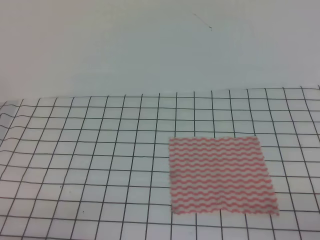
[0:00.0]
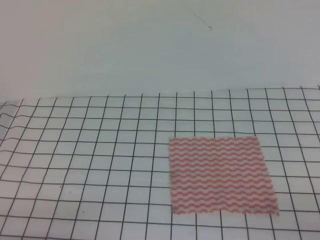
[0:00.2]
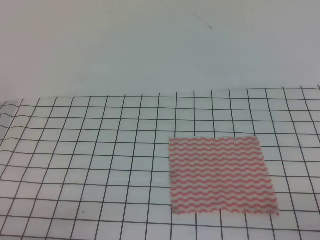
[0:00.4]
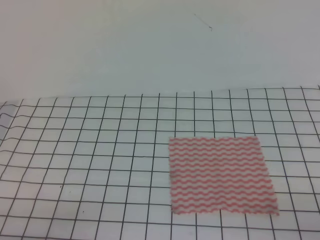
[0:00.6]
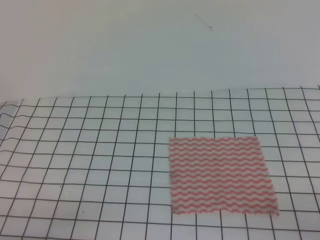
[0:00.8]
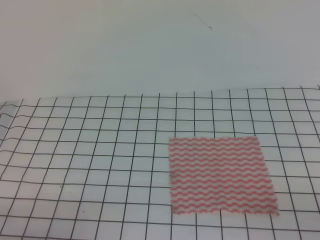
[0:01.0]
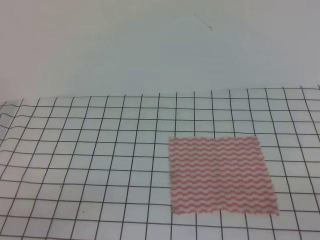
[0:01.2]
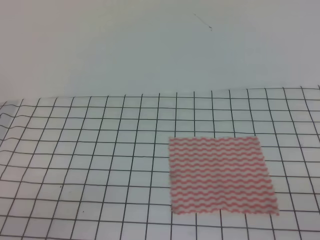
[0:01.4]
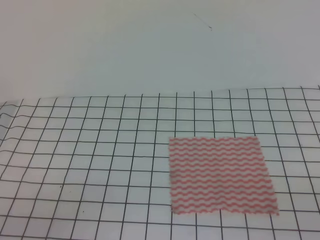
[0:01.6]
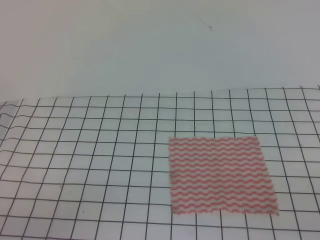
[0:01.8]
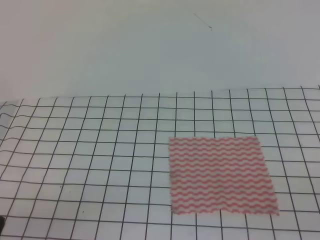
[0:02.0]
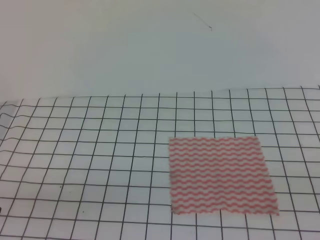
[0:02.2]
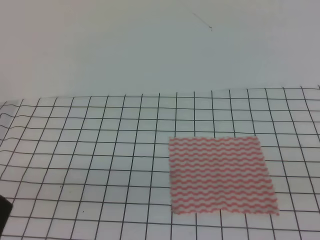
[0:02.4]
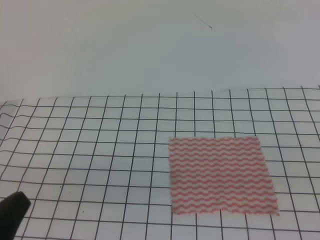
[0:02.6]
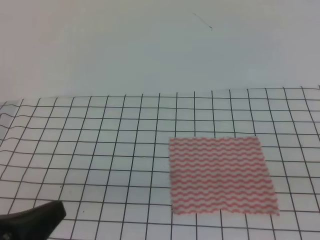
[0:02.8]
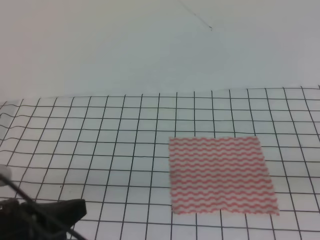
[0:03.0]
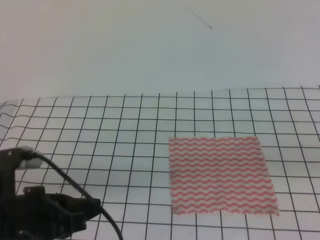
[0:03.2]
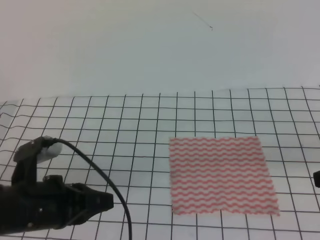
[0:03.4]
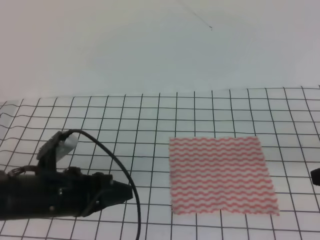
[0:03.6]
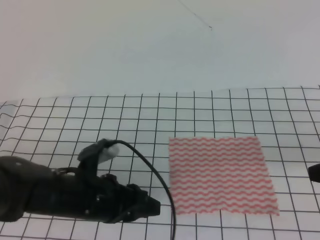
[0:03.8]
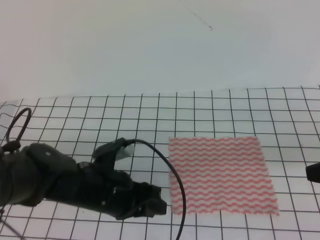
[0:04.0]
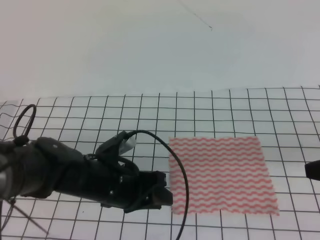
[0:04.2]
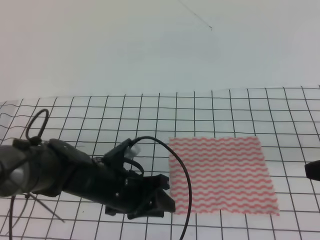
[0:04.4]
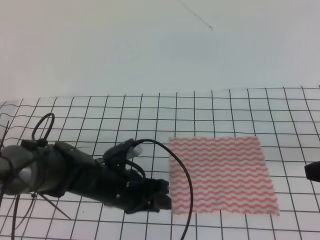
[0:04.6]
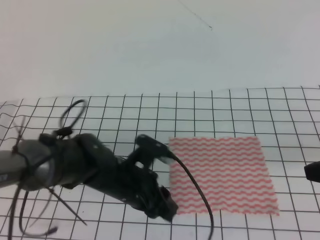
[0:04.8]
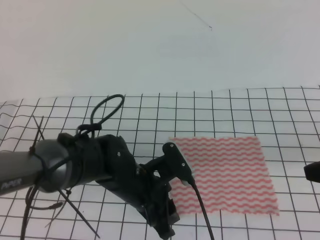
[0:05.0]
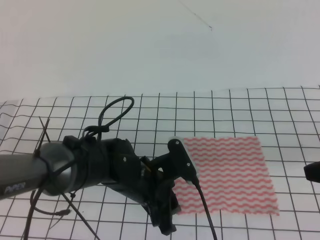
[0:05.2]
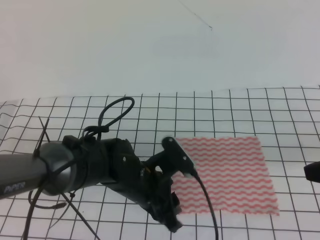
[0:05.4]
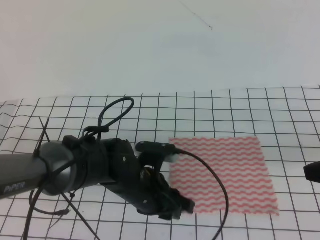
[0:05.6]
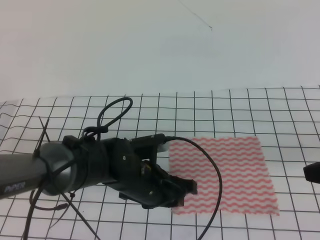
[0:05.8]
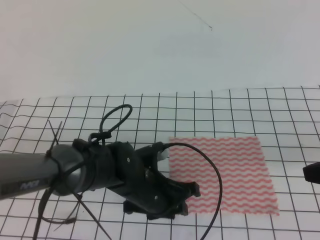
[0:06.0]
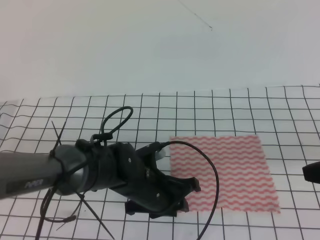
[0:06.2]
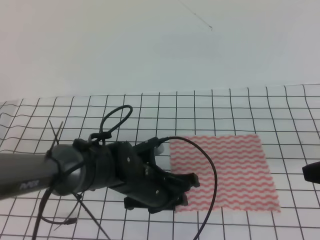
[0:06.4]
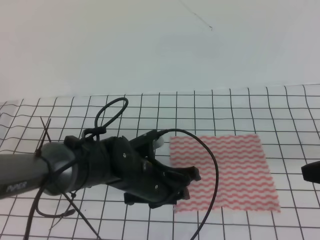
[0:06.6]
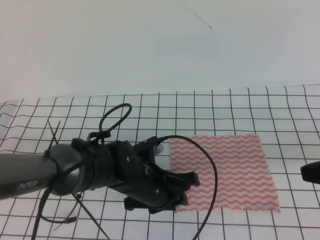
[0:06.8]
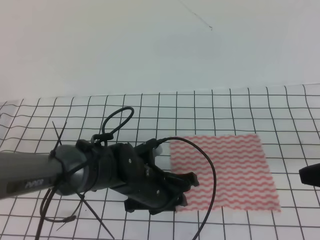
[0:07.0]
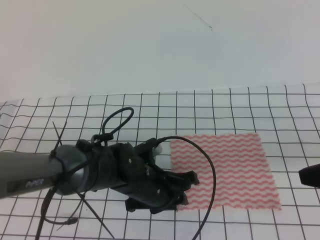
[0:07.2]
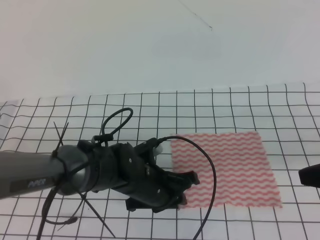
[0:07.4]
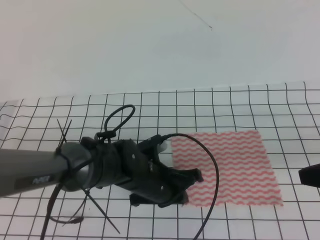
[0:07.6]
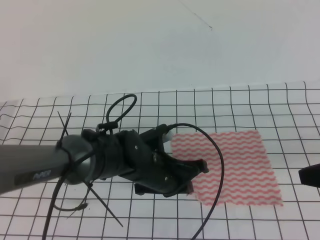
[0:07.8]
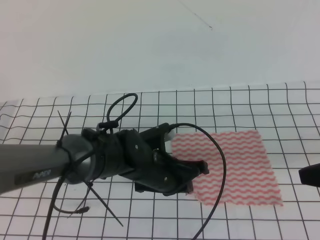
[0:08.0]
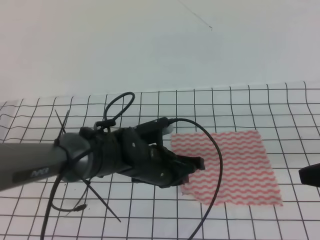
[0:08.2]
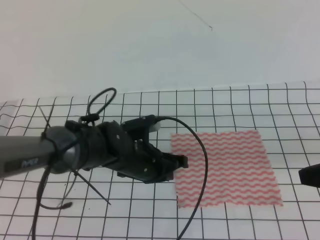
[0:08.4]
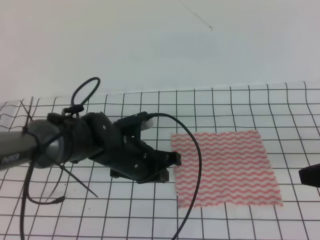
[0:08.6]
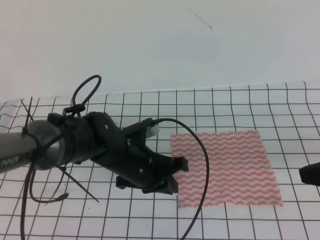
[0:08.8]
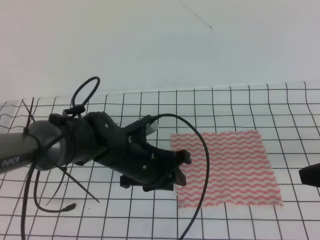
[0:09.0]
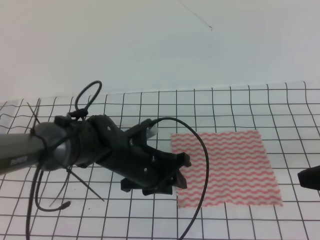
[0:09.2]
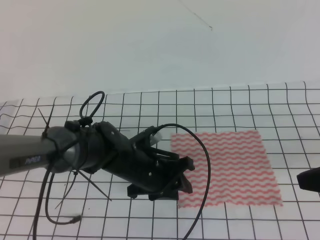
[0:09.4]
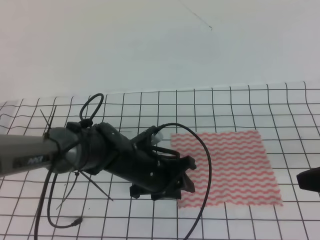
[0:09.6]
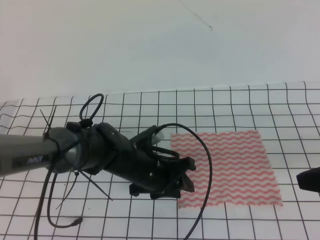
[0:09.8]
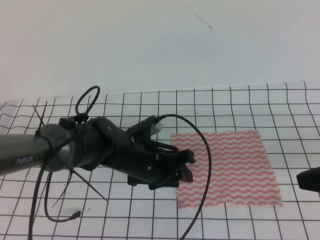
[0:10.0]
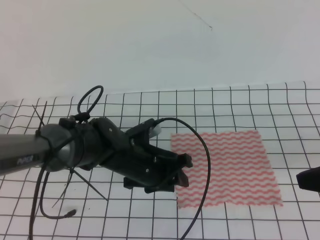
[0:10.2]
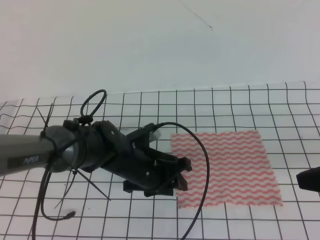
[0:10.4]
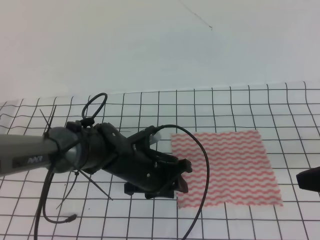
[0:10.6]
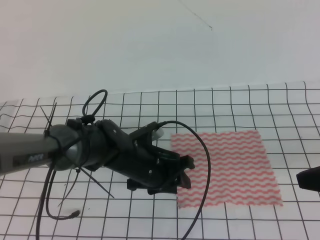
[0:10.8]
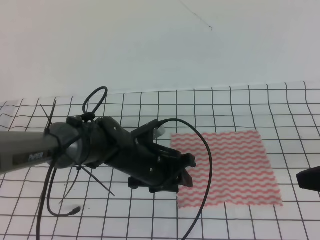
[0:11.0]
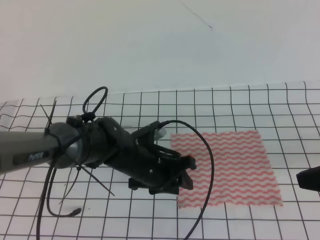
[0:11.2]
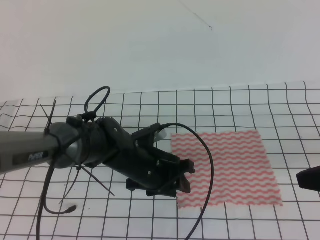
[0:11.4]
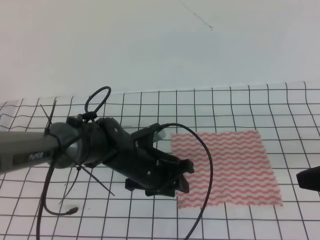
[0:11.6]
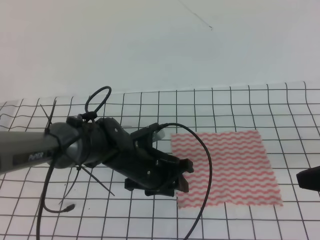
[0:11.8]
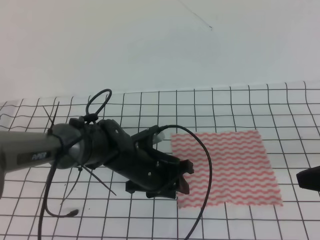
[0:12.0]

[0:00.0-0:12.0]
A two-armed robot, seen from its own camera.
0:01.6 to 0:03.0: The left gripper goes about 10 cm upward, to the right and forward.
0:03.0 to 0:04.4: The left gripper shifts some 20 cm forward, to the right and downward, and opens up, while the right gripper heads forward, covering approximately 10 cm.
0:04.4 to 0:06.0: The left gripper moves to the right, some 5 cm.
0:06.0 to 0:07.6: The left gripper closes.
0:07.6 to 0:09.0: The grippers move only a little.
0:09.0 to 0:10.4: The left gripper opens up.
0:10.4 to 0:12.0: Neither gripper changes place.

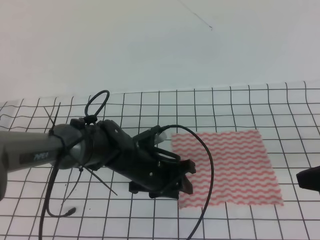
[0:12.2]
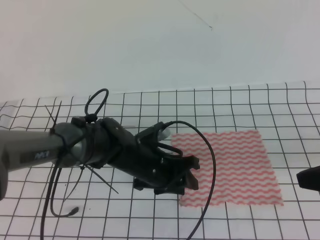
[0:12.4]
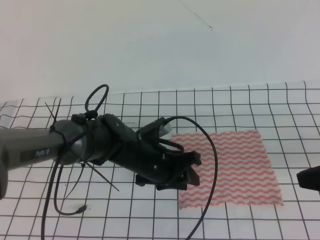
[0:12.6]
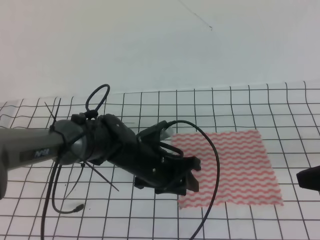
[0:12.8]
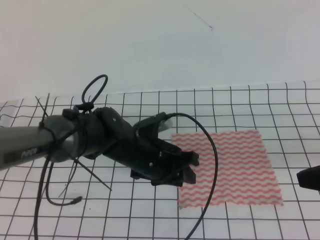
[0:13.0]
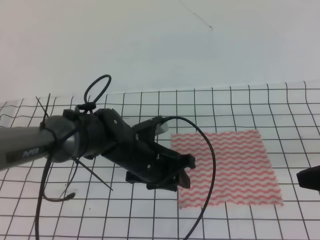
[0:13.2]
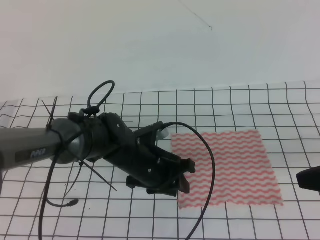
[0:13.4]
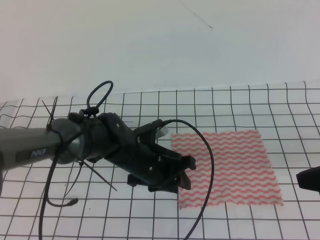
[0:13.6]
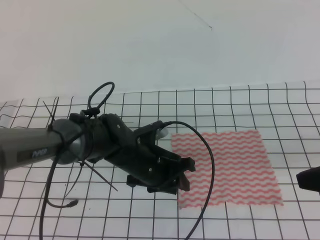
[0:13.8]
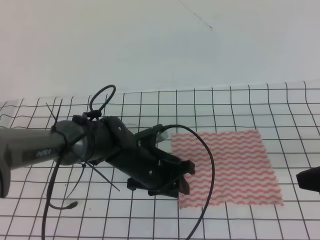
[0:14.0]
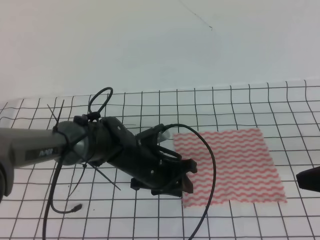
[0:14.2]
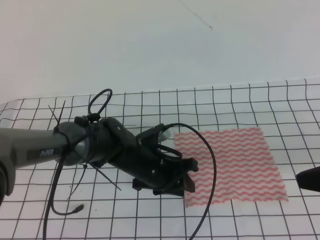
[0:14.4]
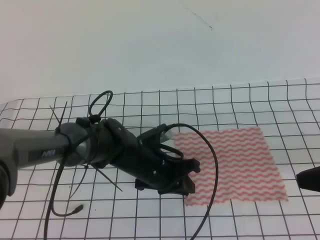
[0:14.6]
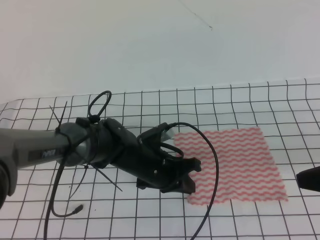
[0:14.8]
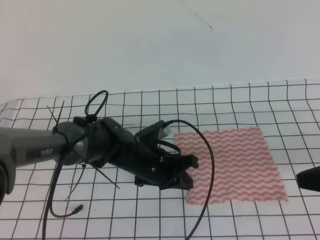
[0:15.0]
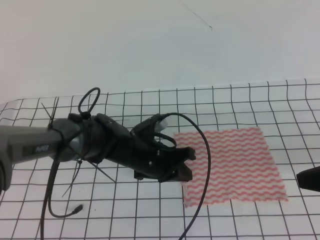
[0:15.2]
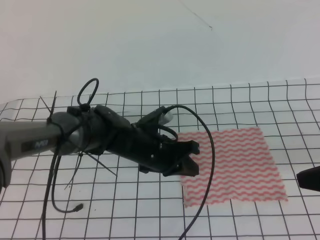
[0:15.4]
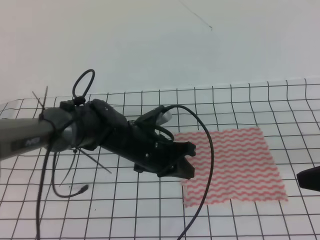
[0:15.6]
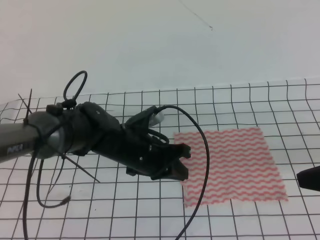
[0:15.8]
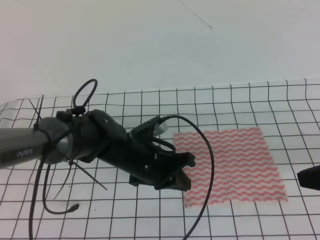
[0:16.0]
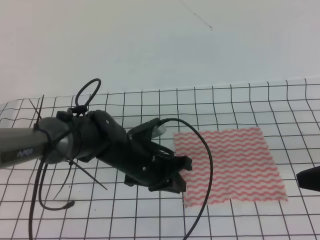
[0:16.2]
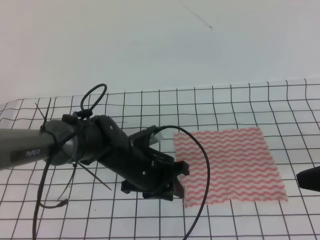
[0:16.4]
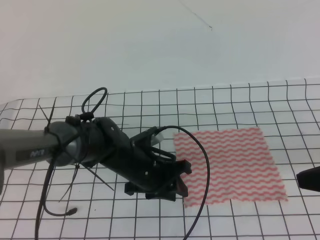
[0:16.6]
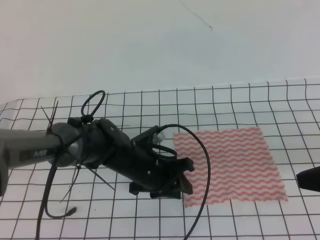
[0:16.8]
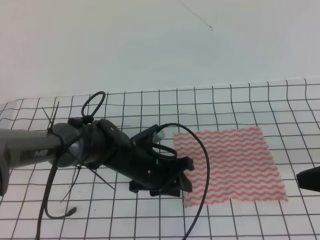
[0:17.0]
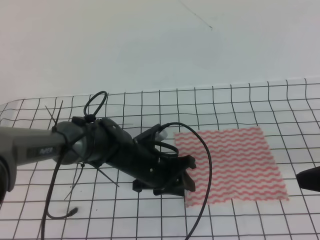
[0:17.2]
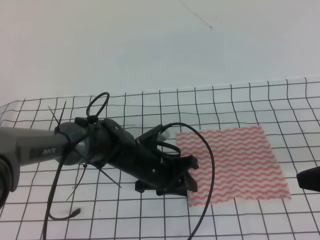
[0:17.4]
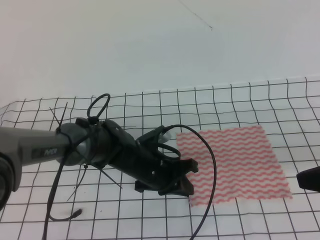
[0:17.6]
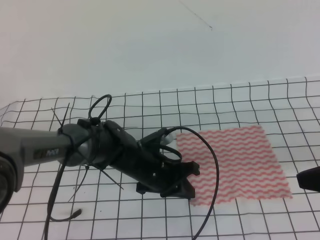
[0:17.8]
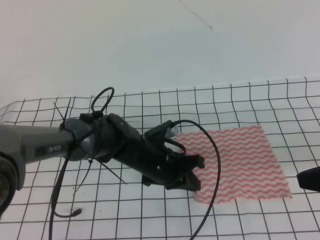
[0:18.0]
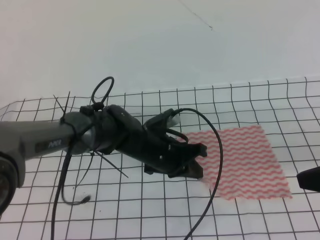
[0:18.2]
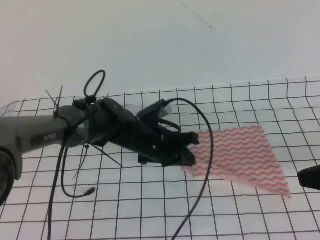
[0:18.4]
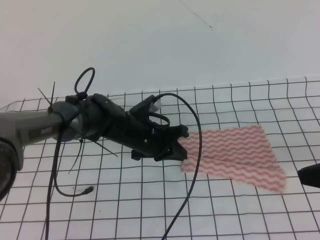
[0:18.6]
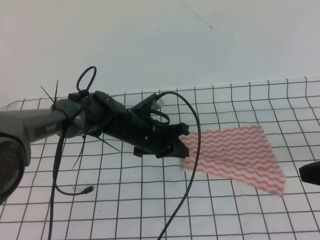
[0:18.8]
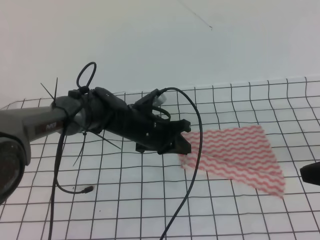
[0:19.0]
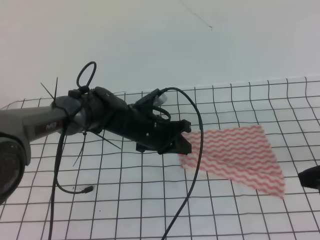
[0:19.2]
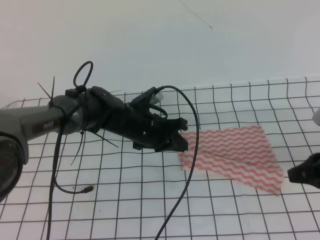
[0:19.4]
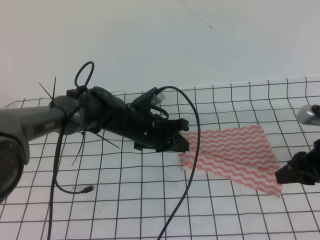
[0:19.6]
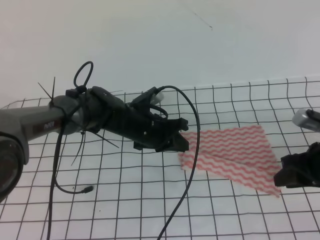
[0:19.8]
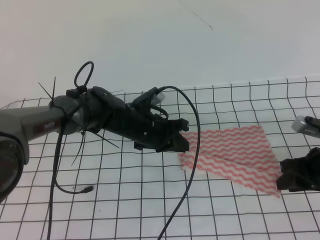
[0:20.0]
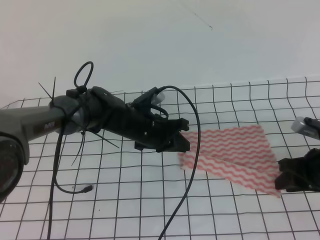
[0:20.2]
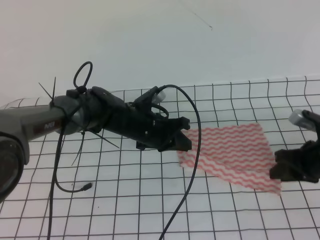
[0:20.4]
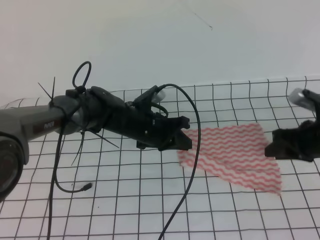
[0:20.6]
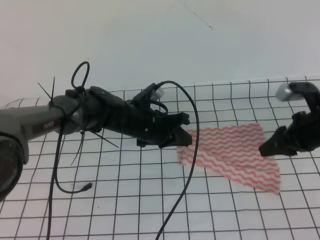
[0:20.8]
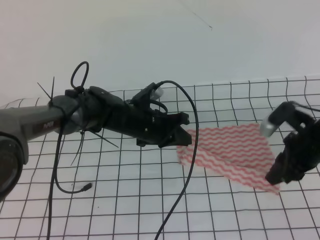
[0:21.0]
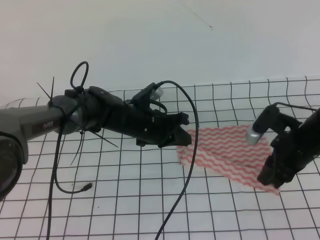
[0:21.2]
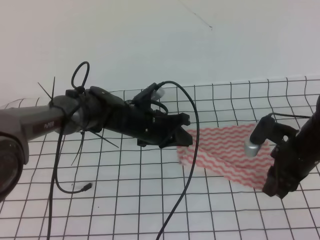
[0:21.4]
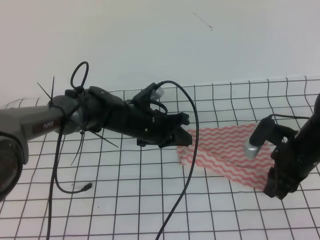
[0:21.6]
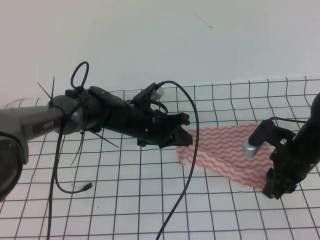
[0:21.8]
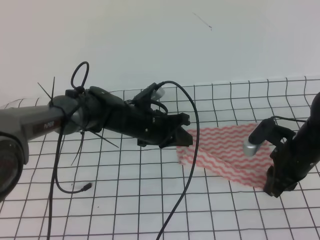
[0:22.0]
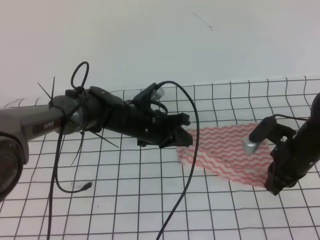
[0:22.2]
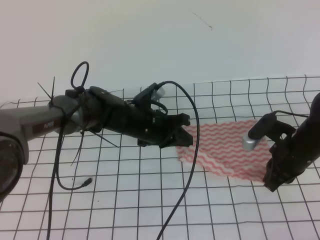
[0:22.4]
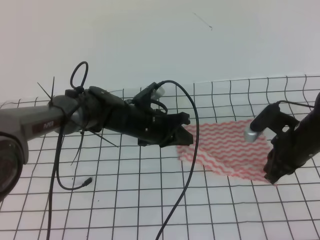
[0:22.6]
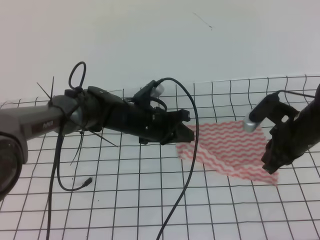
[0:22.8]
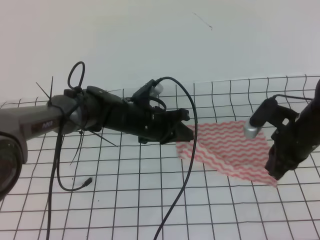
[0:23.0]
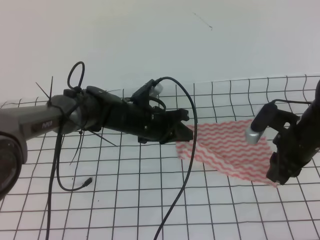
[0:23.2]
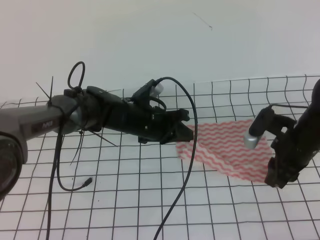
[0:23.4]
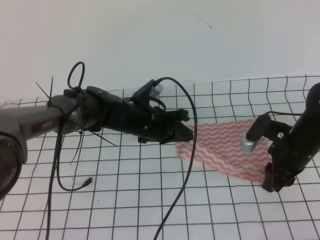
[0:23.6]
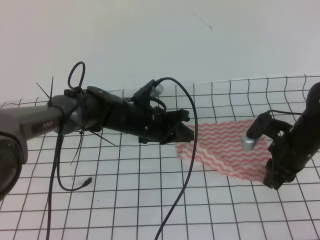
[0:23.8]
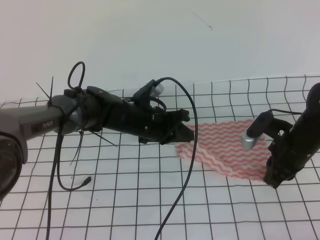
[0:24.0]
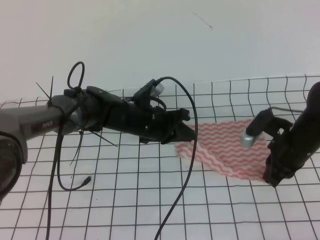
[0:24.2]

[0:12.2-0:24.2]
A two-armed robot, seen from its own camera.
0:12.2 to 0:13.8: The grippers make only small movements.
0:13.8 to 0:15.2: The left gripper closes up.
0:15.2 to 0:16.6: The left gripper opens.
0:16.6 to 0:18.2: The left gripper closes its fingers.
0:18.2 to 0:19.8: The right gripper heads downward and forward, covering some 15 cm, and opens, while the left gripper goes approximately 5 cm forward.
0:19.8 to 0:21.2: The right gripper shifts by approximately 5 cm.
0:21.2 to 0:22.6: The right gripper closes.
0:22.6 to 0:24.2: The right gripper opens, then closes once more.
